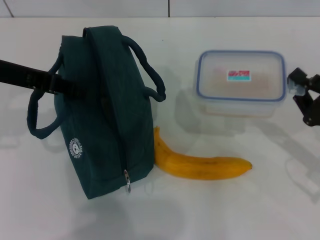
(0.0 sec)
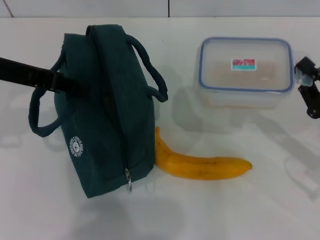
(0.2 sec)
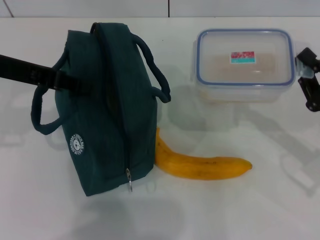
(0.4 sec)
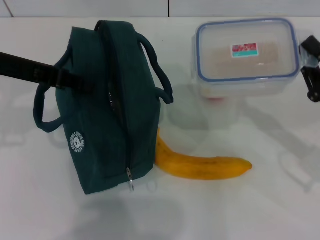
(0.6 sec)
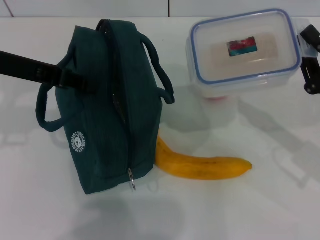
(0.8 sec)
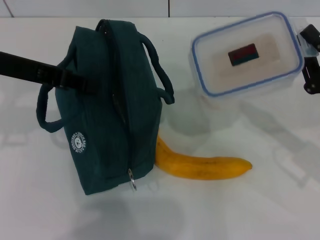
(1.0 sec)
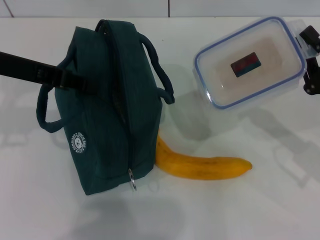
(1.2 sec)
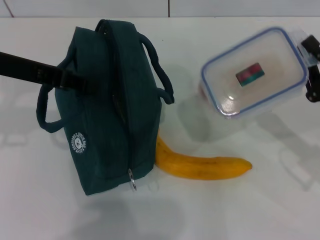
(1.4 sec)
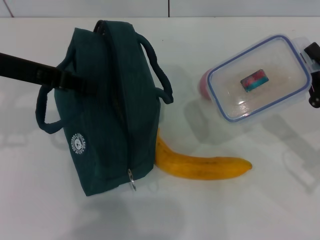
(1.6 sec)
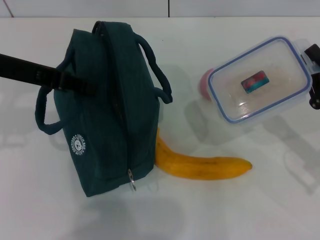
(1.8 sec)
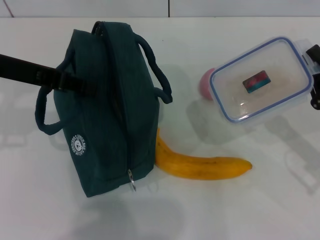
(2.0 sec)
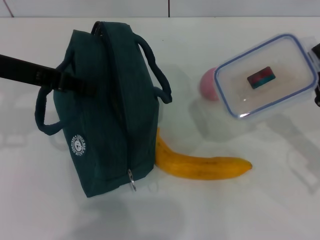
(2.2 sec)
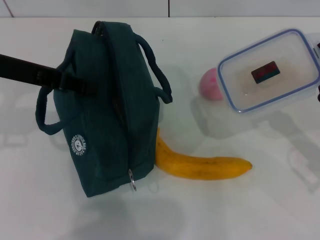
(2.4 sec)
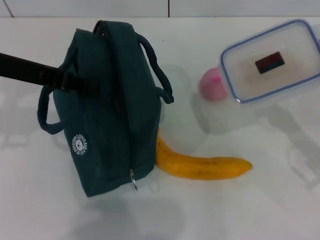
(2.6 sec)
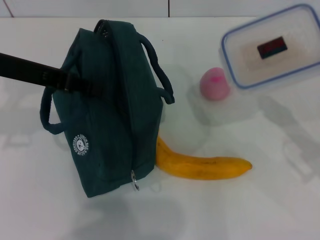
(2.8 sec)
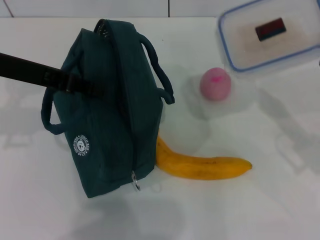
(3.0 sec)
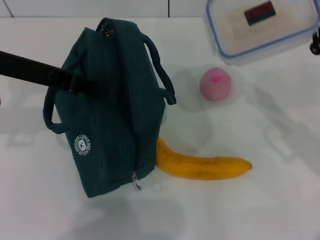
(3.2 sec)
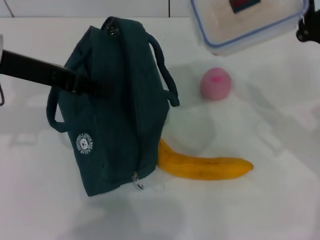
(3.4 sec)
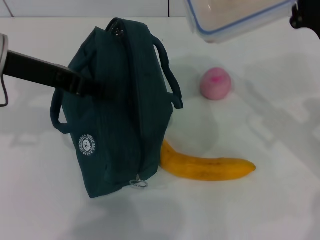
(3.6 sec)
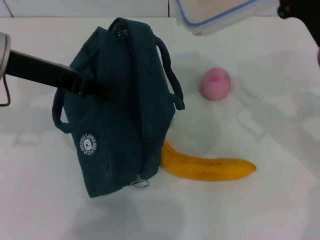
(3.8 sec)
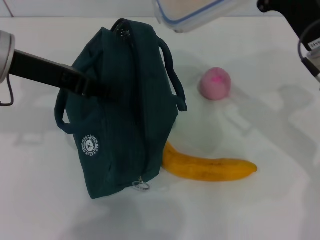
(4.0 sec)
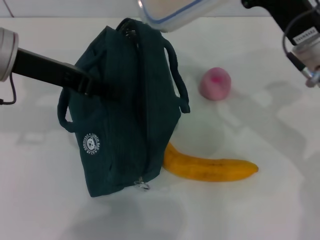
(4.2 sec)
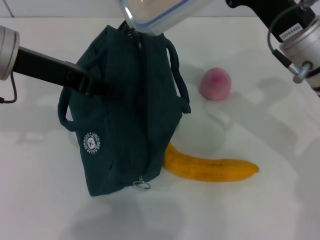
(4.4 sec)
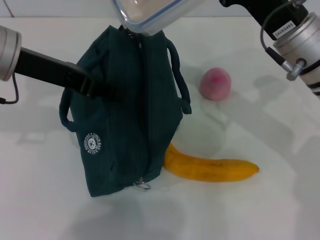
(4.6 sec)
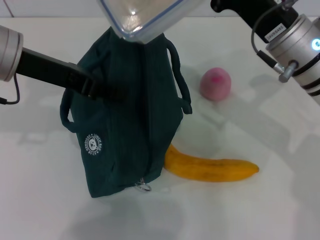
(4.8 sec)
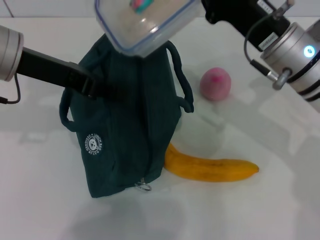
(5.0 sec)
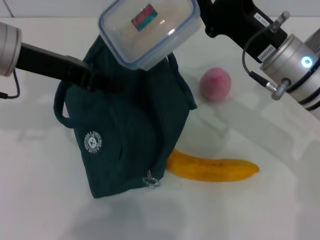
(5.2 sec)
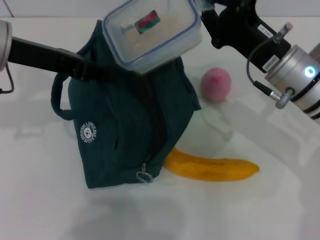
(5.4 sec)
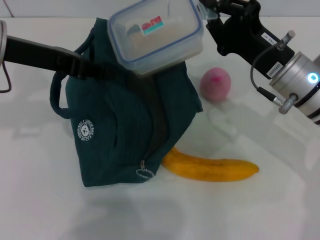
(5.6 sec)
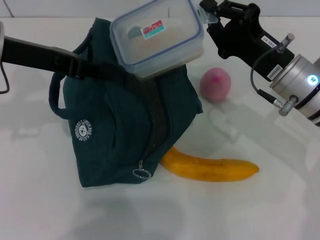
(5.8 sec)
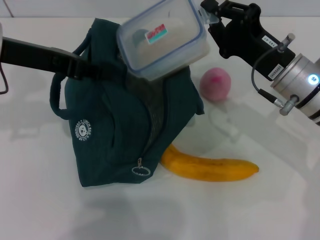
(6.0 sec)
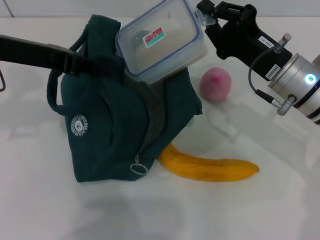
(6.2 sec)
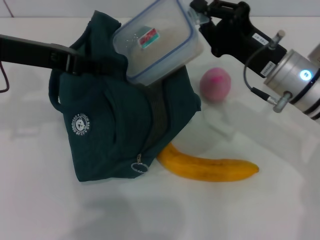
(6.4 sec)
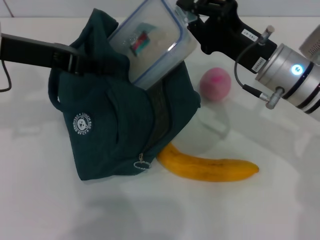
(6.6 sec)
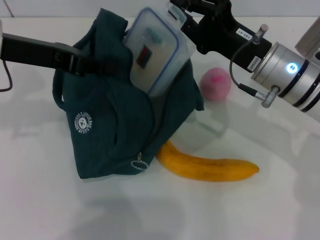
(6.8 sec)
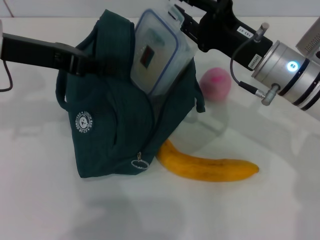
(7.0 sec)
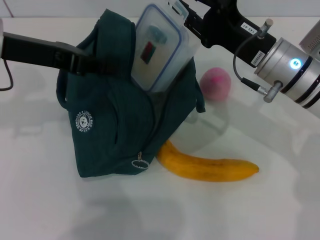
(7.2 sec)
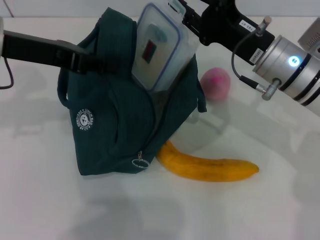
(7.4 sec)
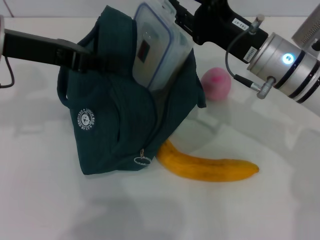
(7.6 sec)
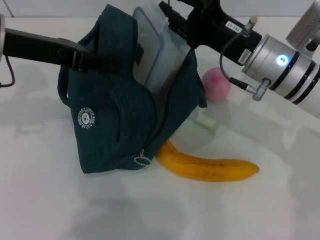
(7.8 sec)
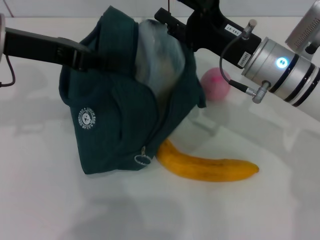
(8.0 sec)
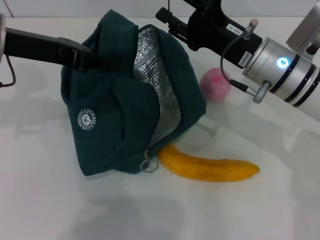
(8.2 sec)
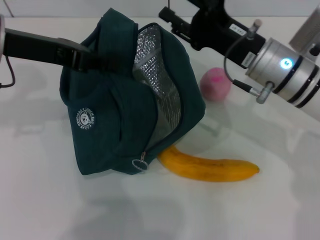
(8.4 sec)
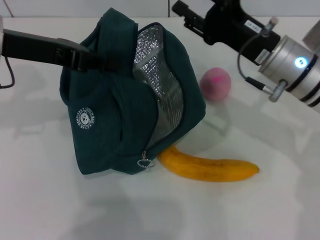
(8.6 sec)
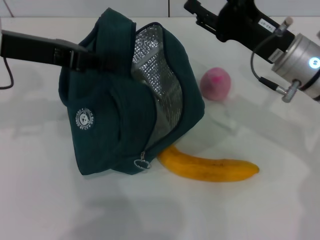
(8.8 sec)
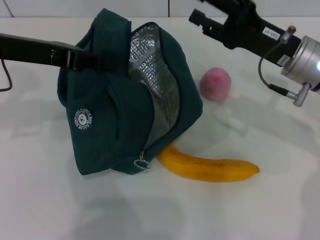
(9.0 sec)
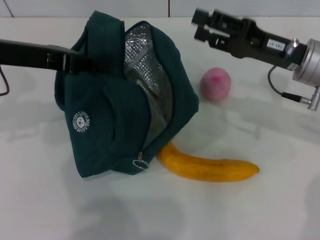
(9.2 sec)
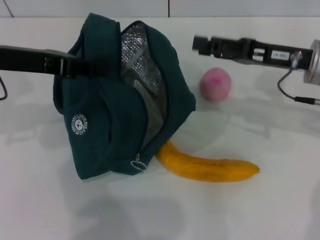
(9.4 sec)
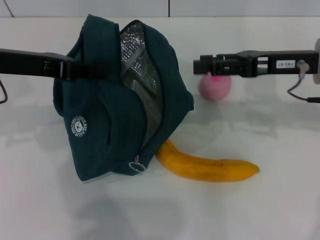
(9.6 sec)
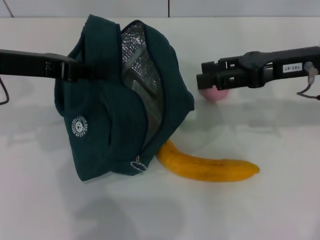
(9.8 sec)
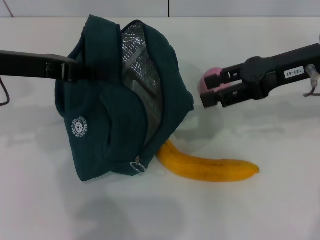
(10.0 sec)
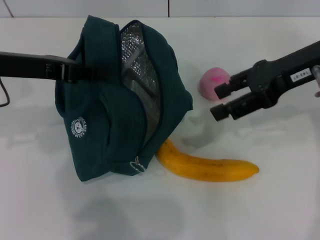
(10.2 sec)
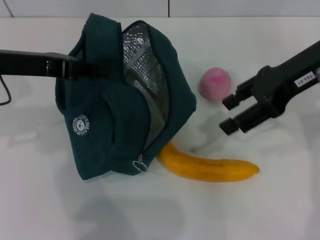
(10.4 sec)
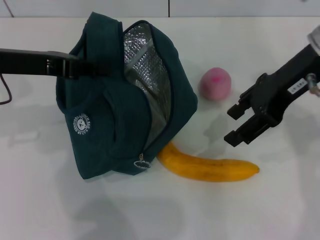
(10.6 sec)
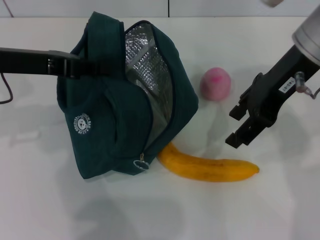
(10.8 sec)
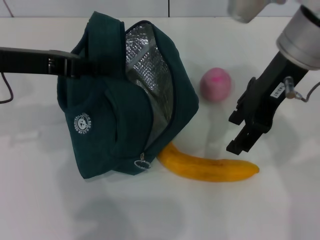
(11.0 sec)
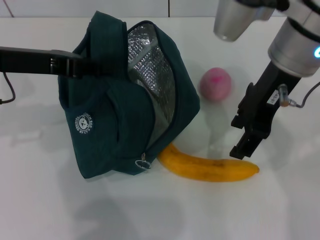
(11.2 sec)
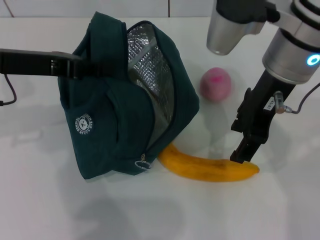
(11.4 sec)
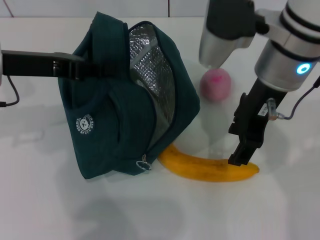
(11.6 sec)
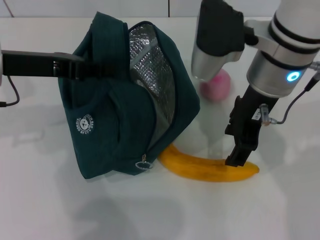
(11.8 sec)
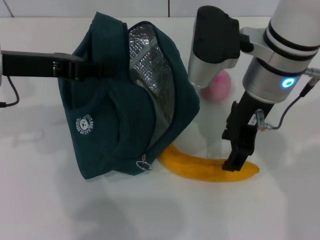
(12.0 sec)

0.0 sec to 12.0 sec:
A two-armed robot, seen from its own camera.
Step, 0.0 sec to 8.6 sec: Place the lunch box into the lunch bag with your right hand.
0.0 sec to 1.6 sec: There are only small adjustments of the grippers.
1.6 sec to 3.0 sec: There are only small adjustments of the grippers.
3.0 sec to 4.4 sec: The right gripper goes roughly 15 cm to the left, forward and upward.
6.0 sec to 7.6 sec: The right gripper opens up.
7.6 sec to 9.0 sec: The right gripper opens.
9.0 sec to 10.4 sec: The right gripper travels upward by approximately 10 cm.
10.4 sec to 12.0 sec: The right gripper shifts roughly 10 cm to the left.

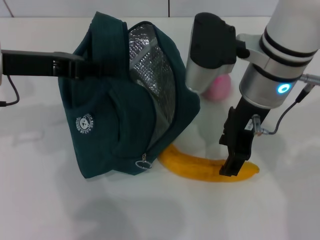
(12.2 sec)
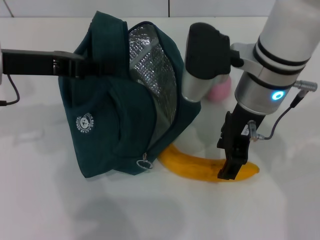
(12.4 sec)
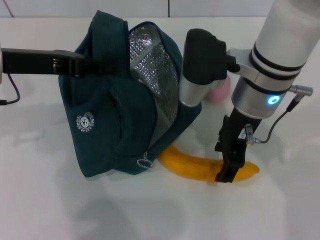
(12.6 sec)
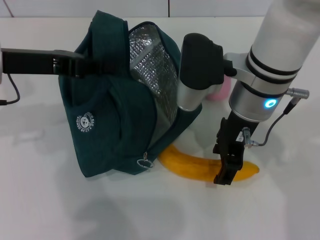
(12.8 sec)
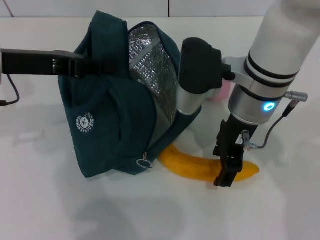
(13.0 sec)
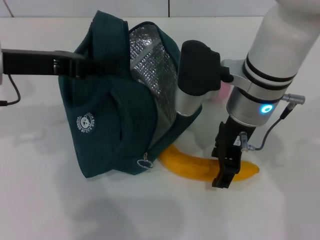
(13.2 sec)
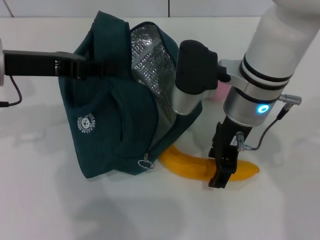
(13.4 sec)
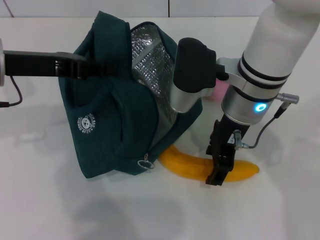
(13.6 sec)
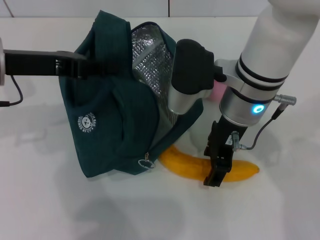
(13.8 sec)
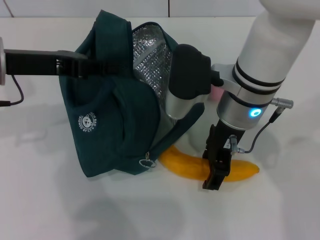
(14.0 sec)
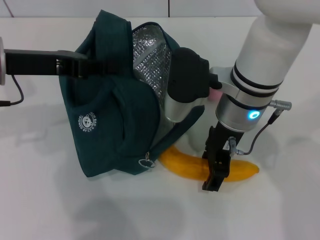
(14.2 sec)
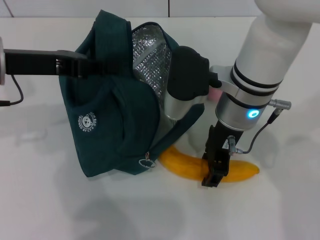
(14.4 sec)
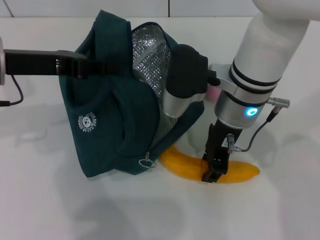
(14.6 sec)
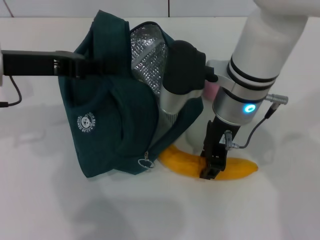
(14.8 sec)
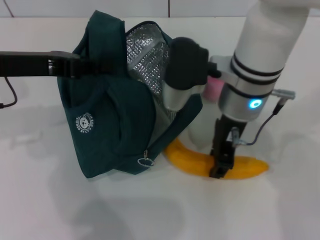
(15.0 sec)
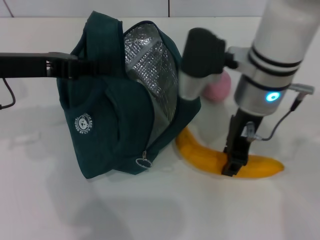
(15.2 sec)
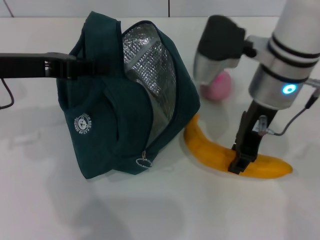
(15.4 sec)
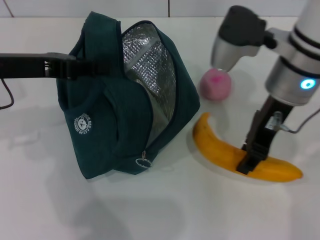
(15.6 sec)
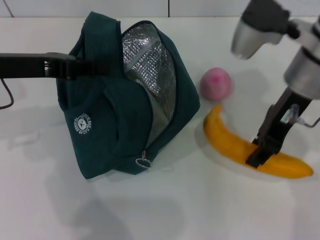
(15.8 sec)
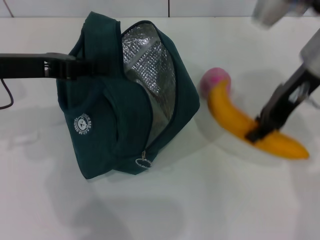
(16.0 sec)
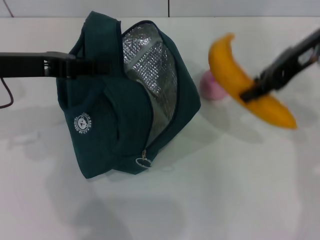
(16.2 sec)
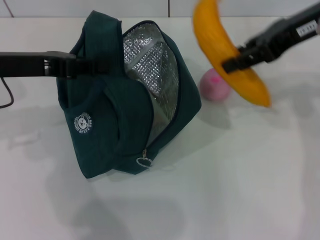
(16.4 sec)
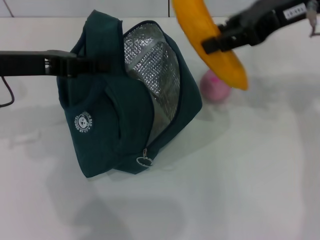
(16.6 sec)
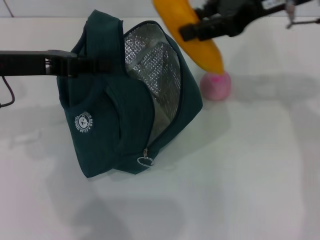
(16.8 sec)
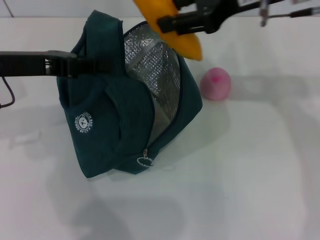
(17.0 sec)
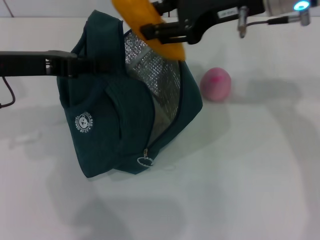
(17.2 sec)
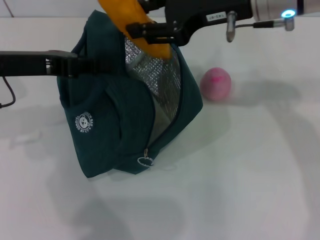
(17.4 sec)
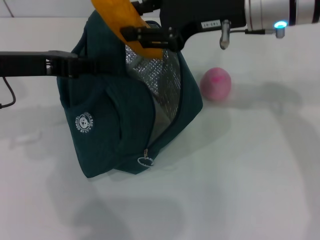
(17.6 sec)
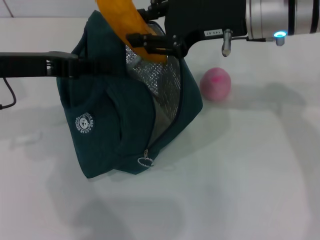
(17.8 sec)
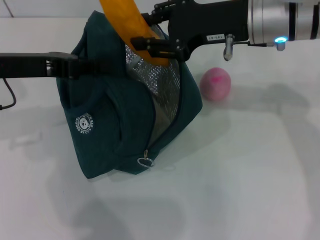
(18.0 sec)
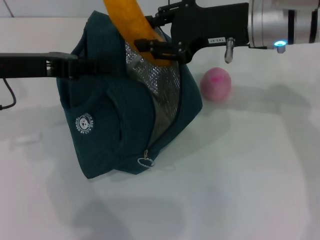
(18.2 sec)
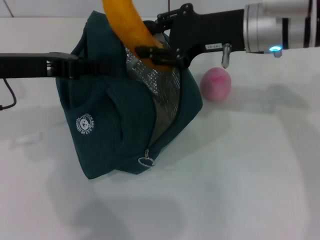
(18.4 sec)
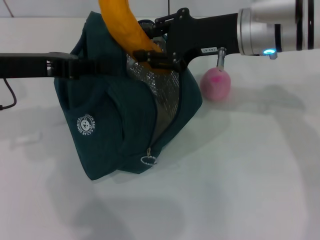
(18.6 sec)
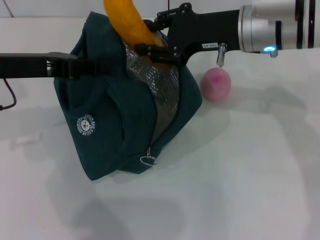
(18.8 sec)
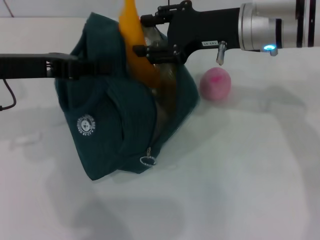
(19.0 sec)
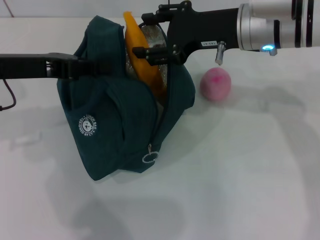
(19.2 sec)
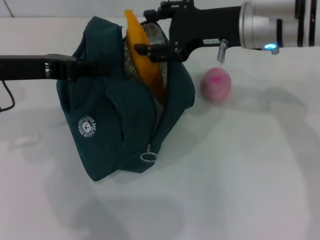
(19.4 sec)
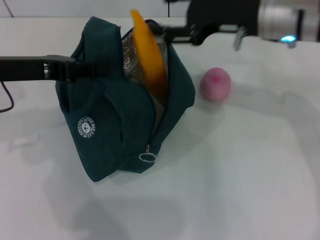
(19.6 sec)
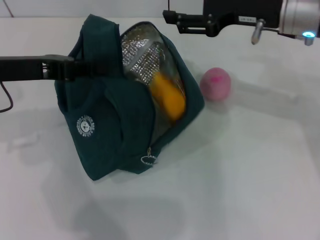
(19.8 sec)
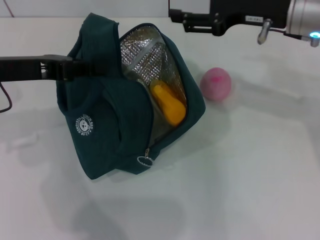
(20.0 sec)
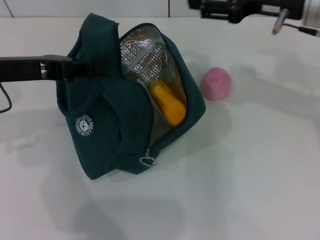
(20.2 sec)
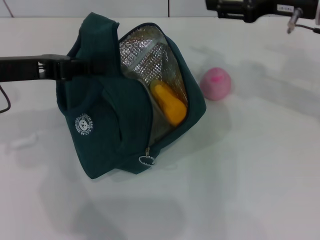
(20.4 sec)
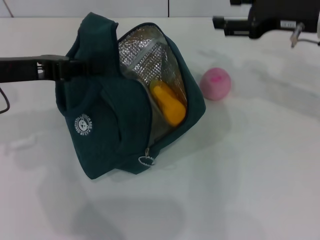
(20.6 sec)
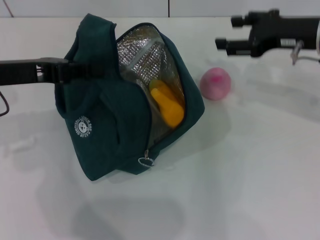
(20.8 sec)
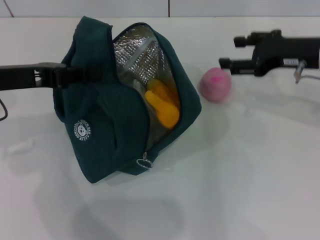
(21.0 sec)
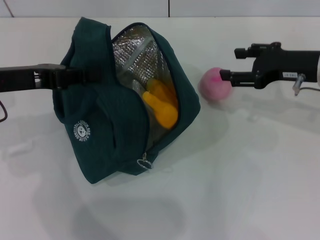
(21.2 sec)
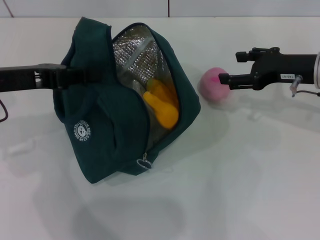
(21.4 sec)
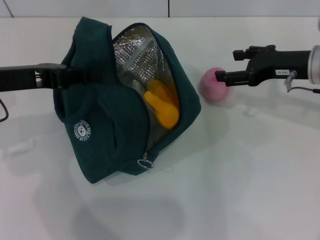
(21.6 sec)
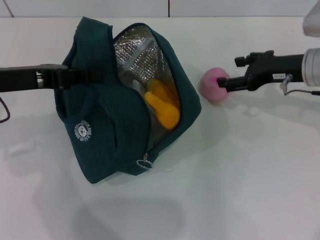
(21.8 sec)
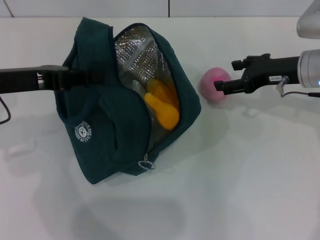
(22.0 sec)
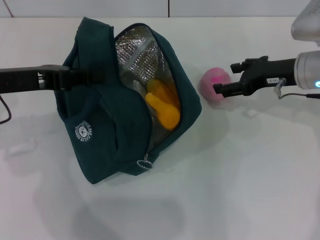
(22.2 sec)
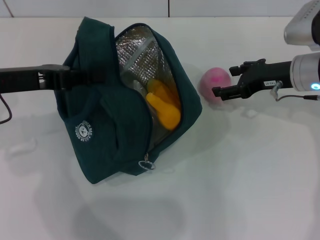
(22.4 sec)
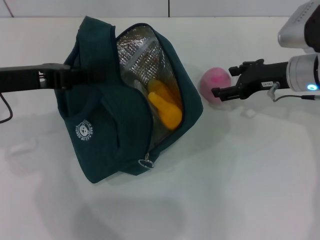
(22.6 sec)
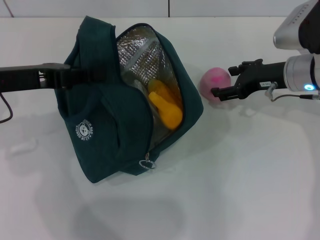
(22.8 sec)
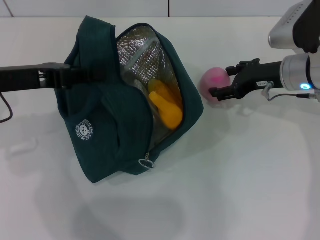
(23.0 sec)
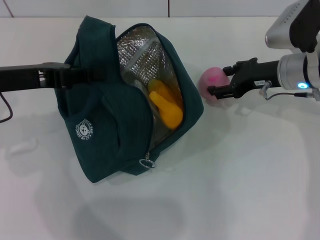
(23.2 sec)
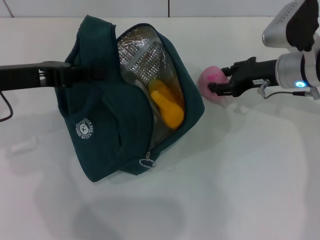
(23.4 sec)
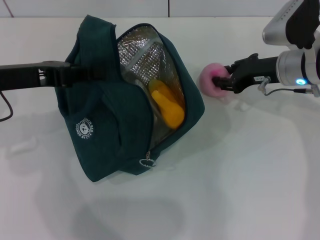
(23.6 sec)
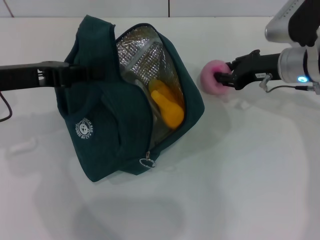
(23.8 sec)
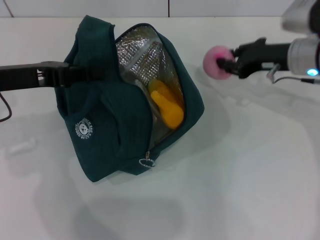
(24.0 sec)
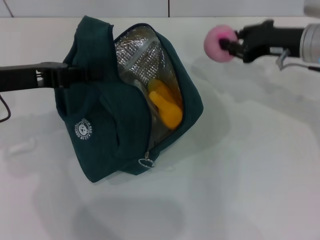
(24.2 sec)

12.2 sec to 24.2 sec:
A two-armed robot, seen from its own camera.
Step, 12.2 sec to 14.6 sec: Take the banana with your right hand.
Step, 14.8 sec to 20.6 sec: Put the banana into the lunch bag with your right hand.
Step, 20.8 sec to 23.6 sec: Grab the peach with your right hand.
12.2 sec to 13.8 sec: The grippers make only small movements.
13.8 sec to 15.2 sec: The right gripper closes its fingers.
15.2 sec to 16.6 sec: The right gripper goes roughly 15 cm upward and to the right.
16.6 sec to 18.2 sec: The right gripper shifts about 10 cm downward and to the left.
18.2 sec to 19.8 sec: The right gripper opens.
19.8 sec to 21.2 sec: The right gripper goes about 10 cm downward and to the right.
21.2 sec to 22.6 sec: The right gripper changes place by about 5 cm.
22.6 sec to 24.2 sec: The right gripper closes.
